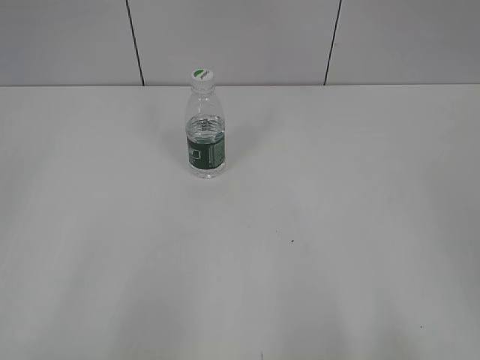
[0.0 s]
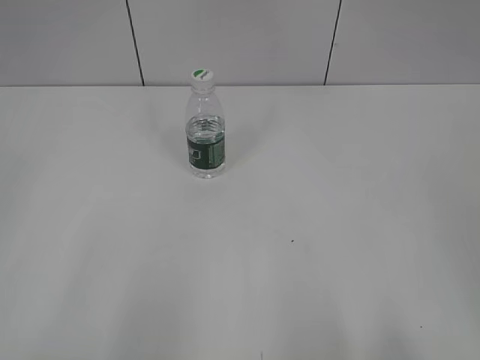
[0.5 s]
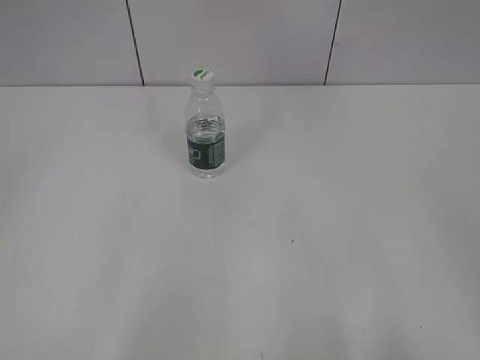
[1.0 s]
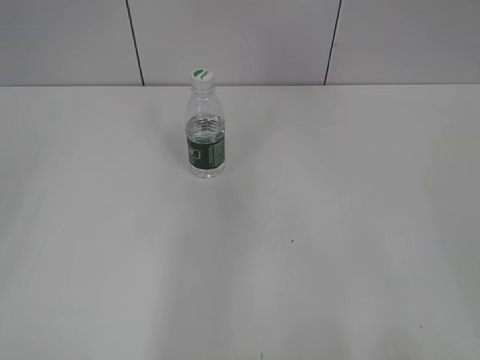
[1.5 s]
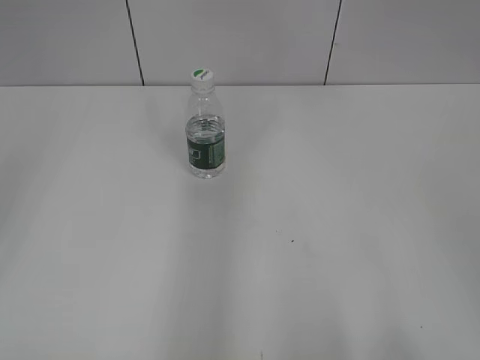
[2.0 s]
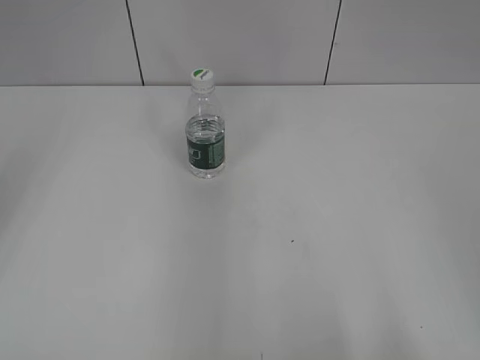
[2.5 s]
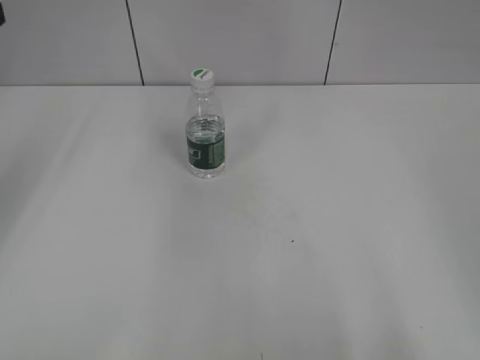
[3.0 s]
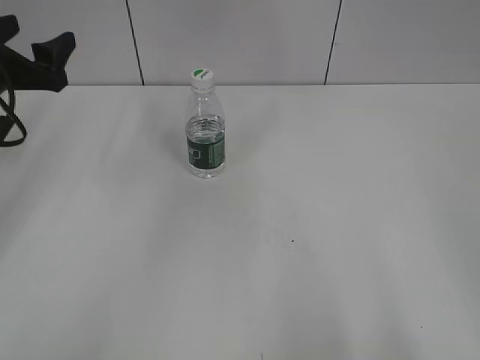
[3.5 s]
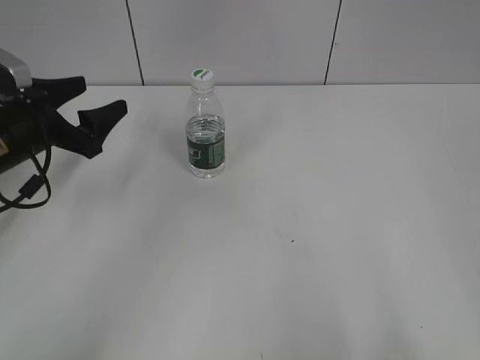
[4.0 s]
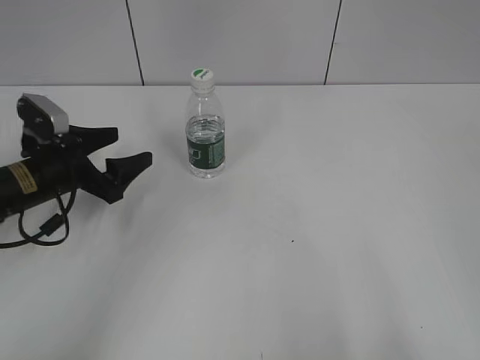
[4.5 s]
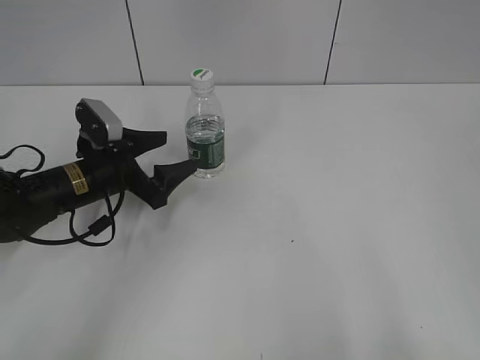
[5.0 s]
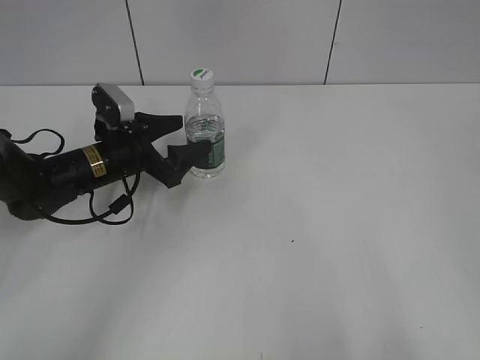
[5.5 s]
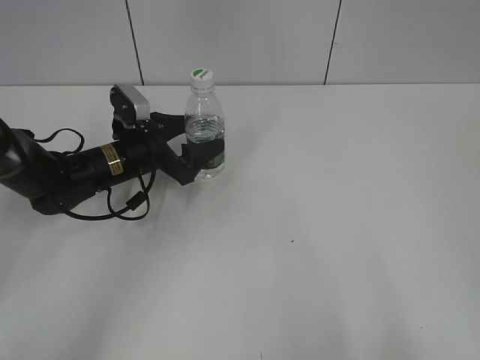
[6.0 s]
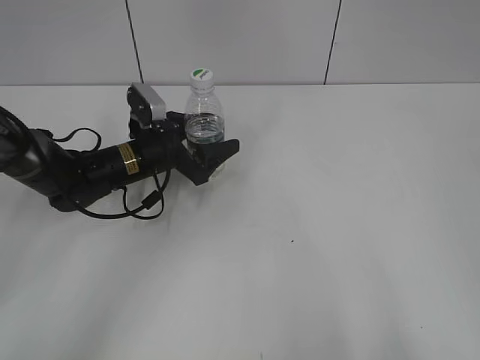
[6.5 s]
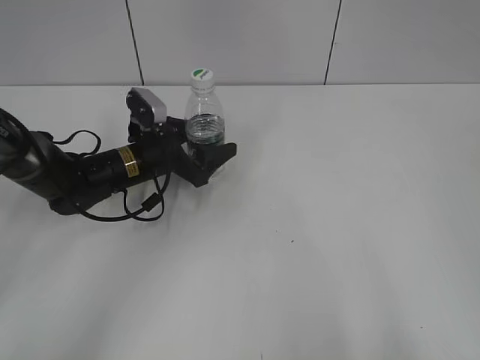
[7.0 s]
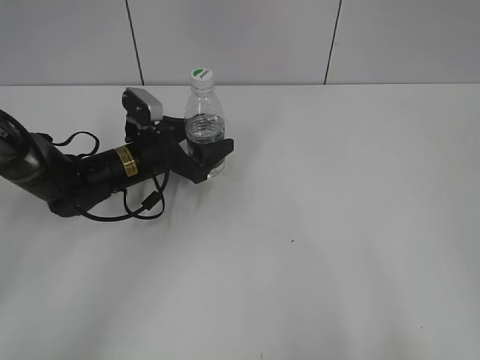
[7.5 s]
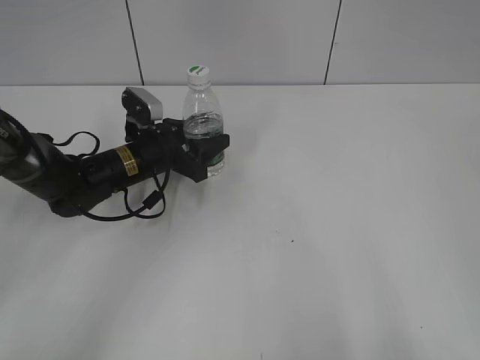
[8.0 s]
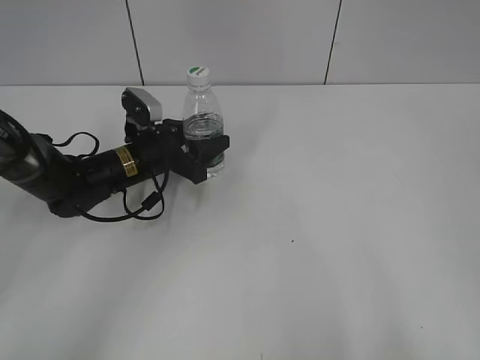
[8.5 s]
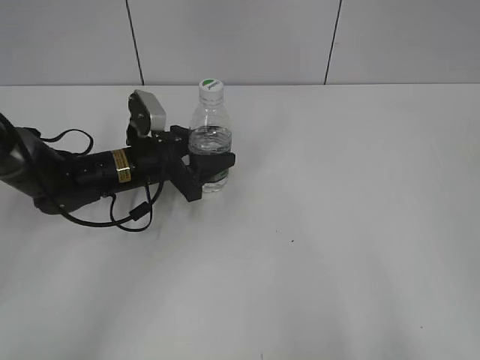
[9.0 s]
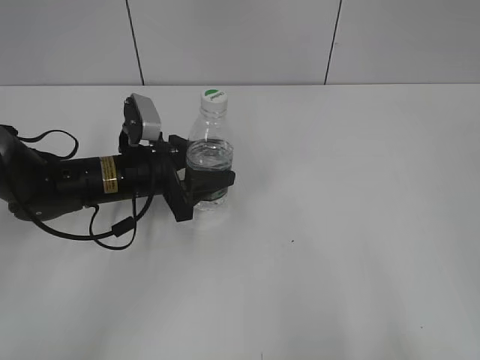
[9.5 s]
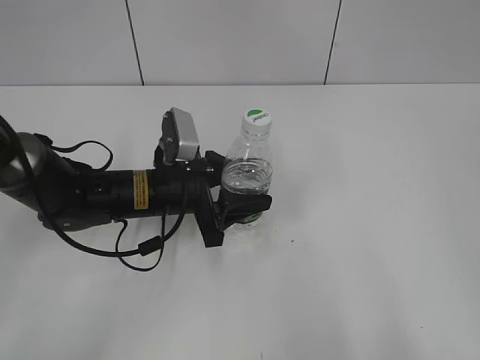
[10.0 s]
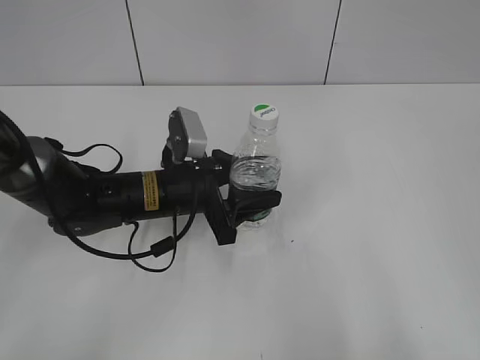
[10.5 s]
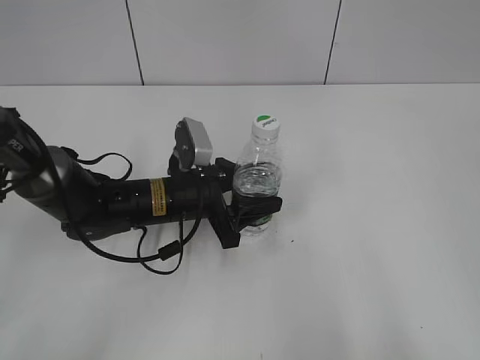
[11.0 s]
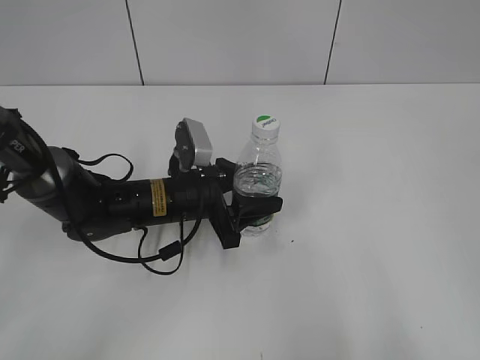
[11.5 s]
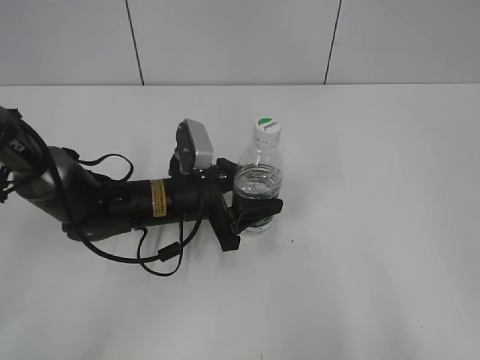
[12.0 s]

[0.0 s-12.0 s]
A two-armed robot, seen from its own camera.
Step, 0.0 to 8.0 s: Grasp the bottle and move it to the center of the table with the left gripper.
Step, 8.5 to 12.0 s: Lift the bottle and move it to the center of the table with the left gripper.
2.0 to 4.0 s: The left gripper is displaced downward and forward by roughly 30 cm.
4.0 to 6.0 s: The left gripper travels to the right, downward and forward by roughly 15 cm.
6.0 to 8.0 s: The left gripper closes.
8.0 to 10.0 s: The left gripper travels backward by roughly 10 cm.
10.0 to 12.0 s: The grippers make only small movements.

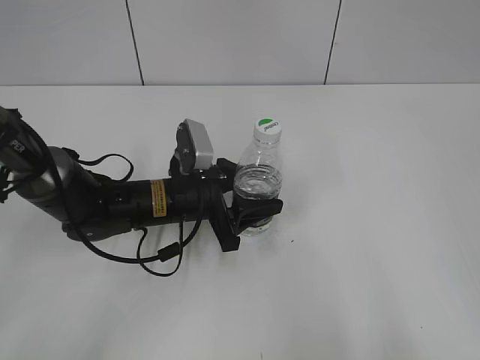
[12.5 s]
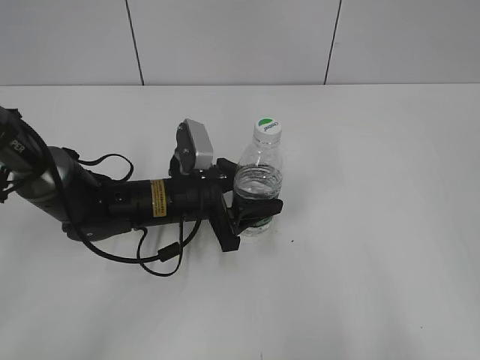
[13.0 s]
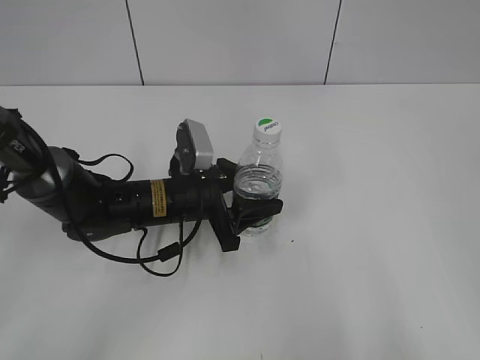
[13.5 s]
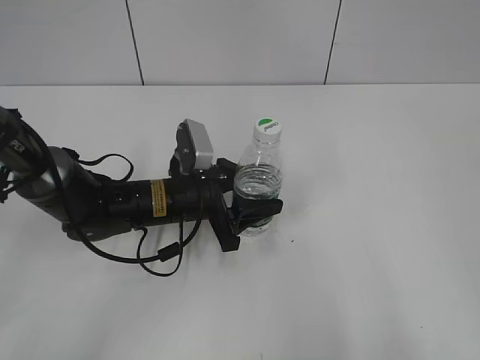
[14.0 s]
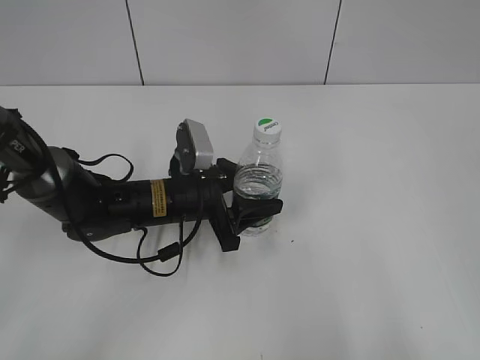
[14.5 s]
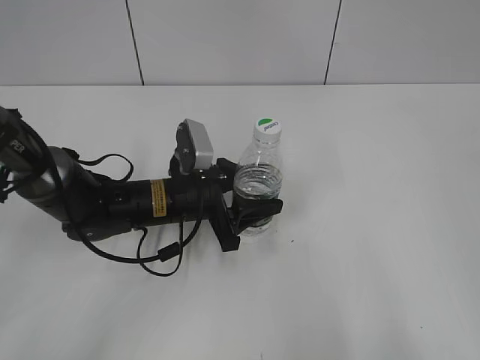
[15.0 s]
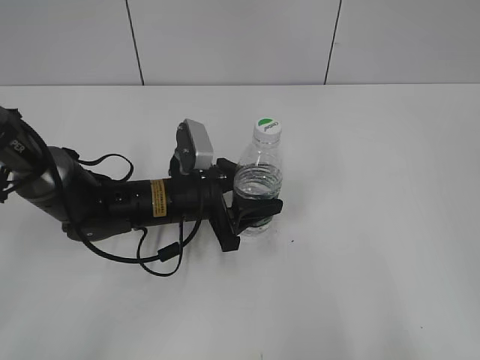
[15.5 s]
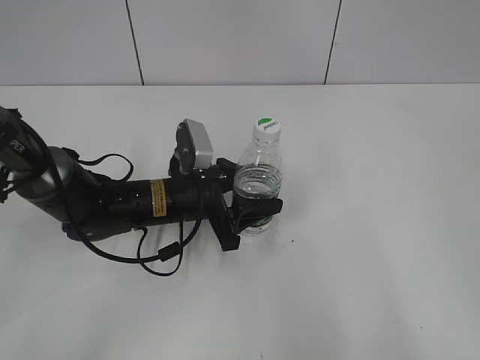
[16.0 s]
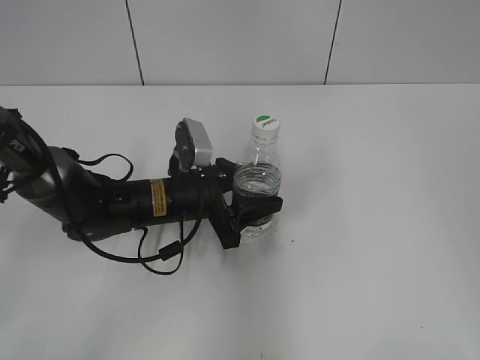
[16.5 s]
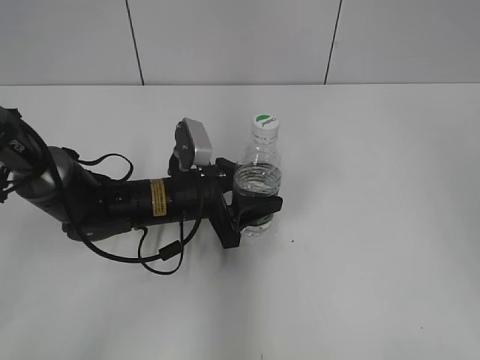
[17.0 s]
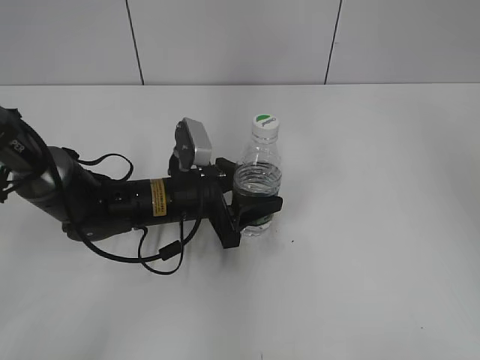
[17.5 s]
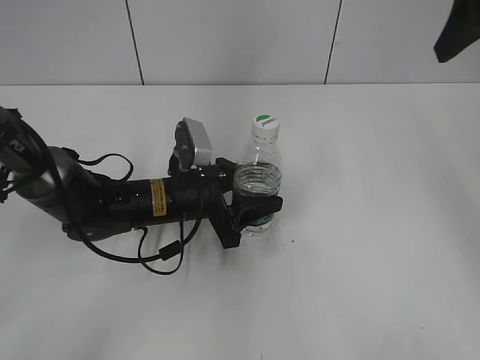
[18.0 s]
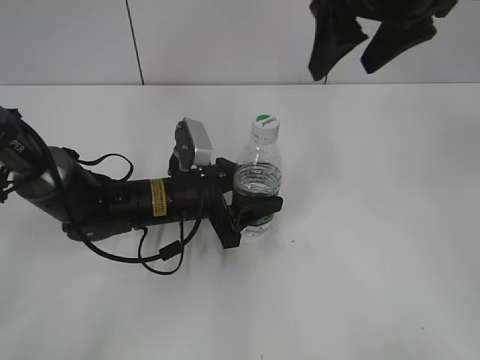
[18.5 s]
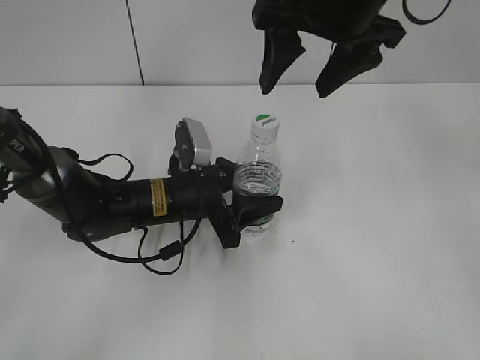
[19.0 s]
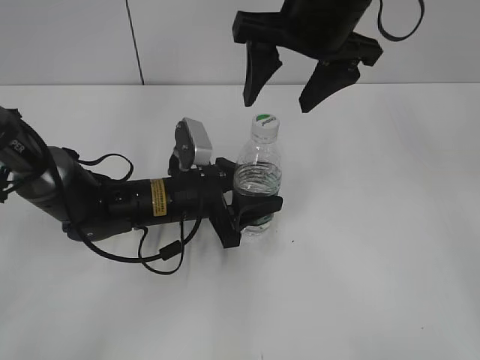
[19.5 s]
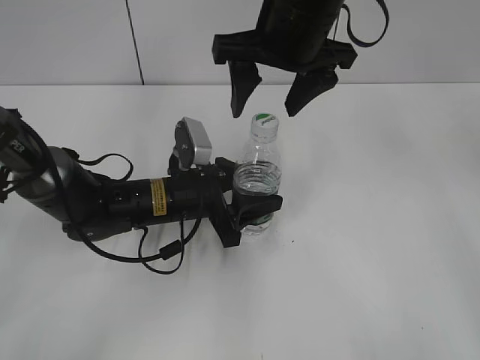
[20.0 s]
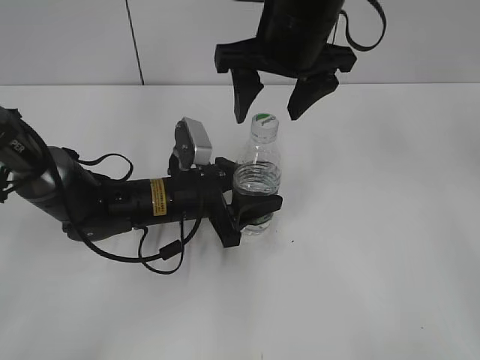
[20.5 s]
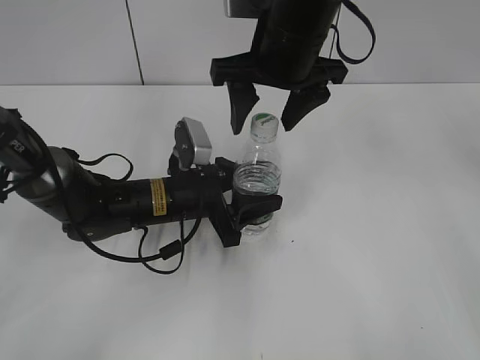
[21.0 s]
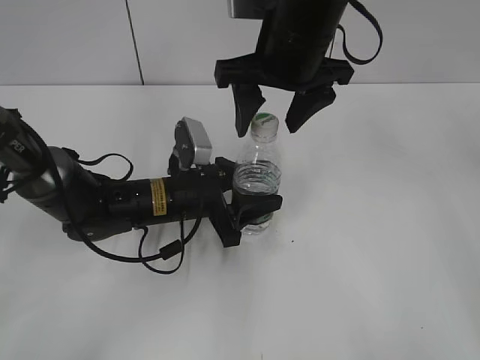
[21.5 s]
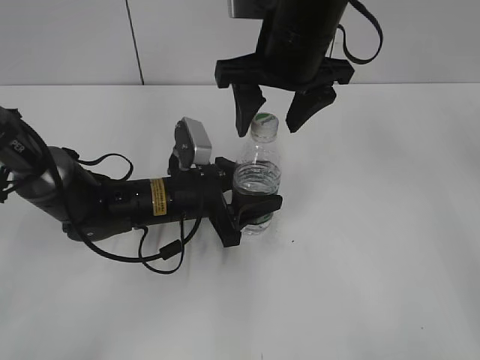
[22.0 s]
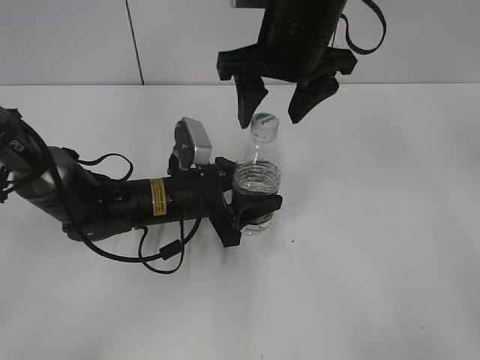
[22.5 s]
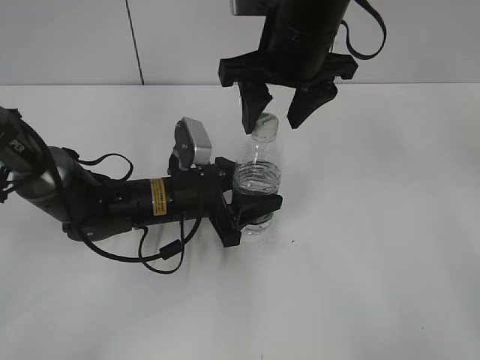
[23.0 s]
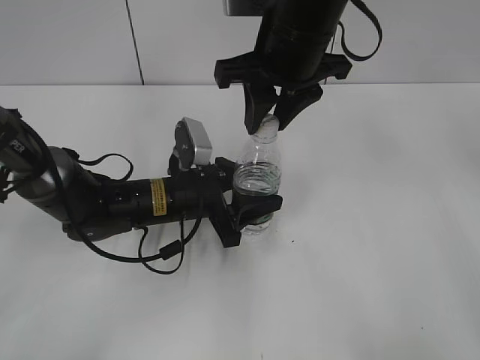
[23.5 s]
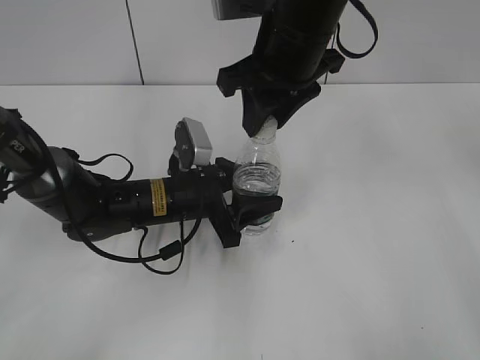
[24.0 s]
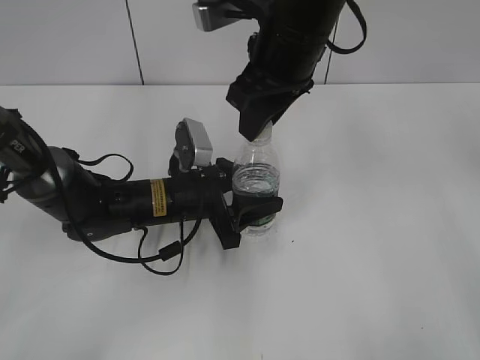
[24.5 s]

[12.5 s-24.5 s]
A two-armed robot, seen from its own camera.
12.5 to 14.5 s: Both grippers stay put.
14.5 to 16.5 s: The right gripper moves forward and upward, roughly 10 cm.
16.5 to 18.5 s: The right gripper goes roughly 30 cm forward and to the left.
18.5 to 20.5 s: The right gripper is displaced to the left and downward by roughly 10 cm.
20.5 to 22.5 s: The grippers stay close to where they were, moving slightly.
22.5 to 24.5 s: The right gripper closes.

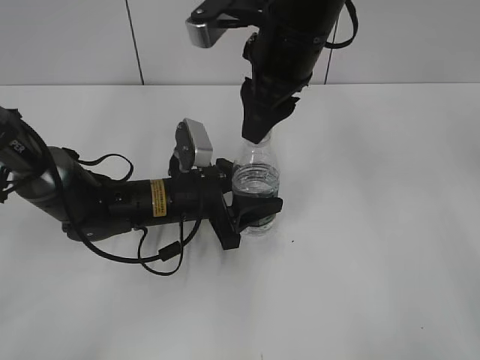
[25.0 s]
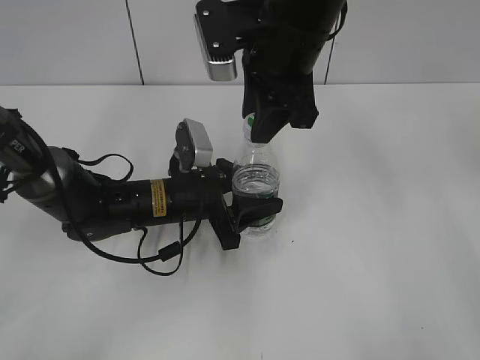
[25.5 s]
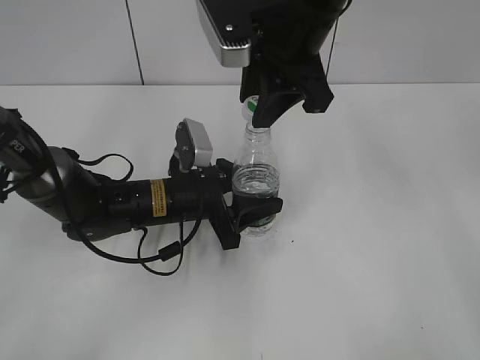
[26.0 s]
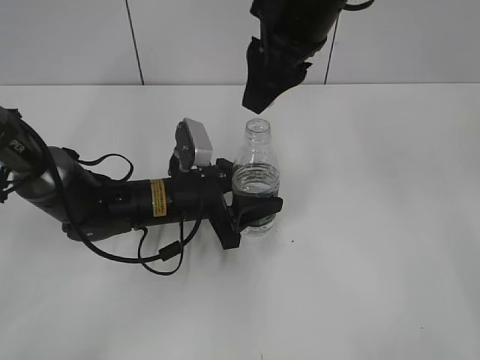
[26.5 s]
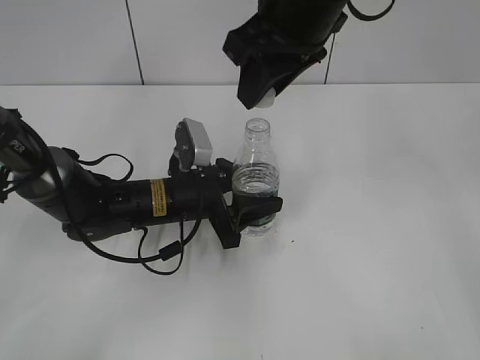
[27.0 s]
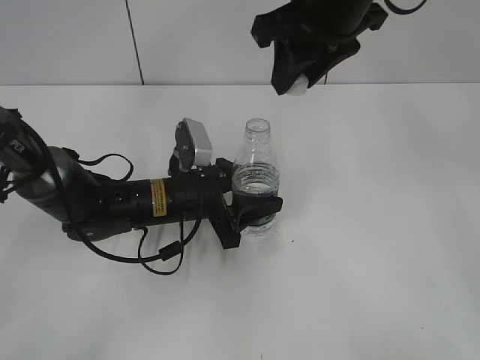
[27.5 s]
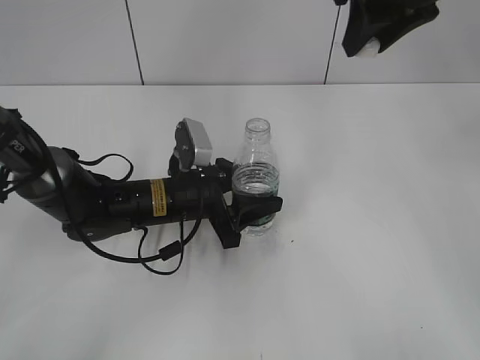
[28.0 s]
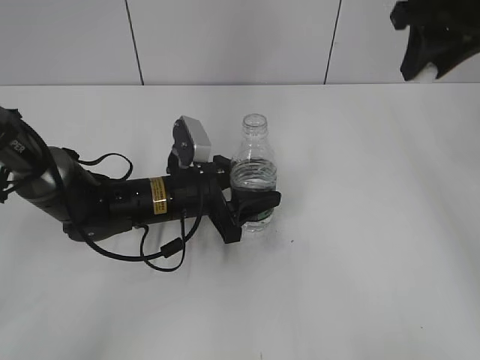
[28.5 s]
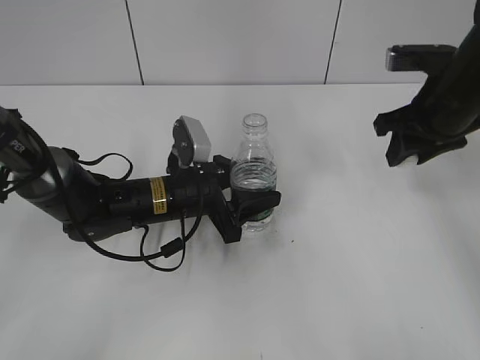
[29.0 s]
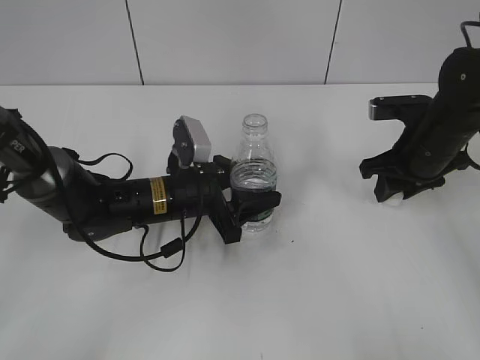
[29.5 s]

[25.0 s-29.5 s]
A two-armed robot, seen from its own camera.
27.0 to 29.5 s: The right gripper moves downward and to the right, some 25 cm.
